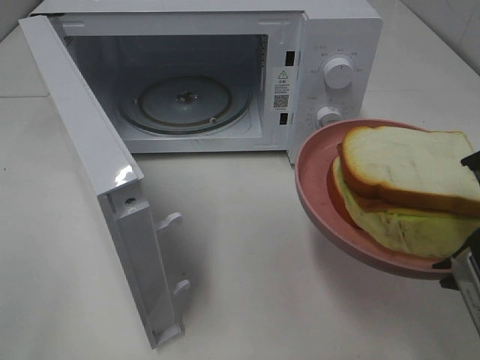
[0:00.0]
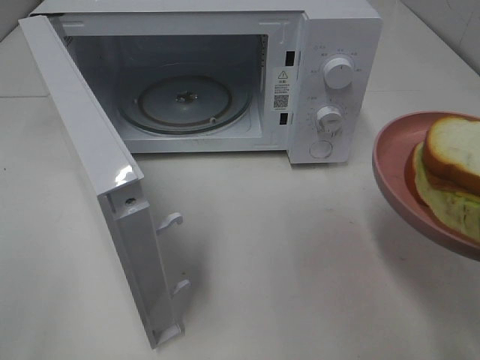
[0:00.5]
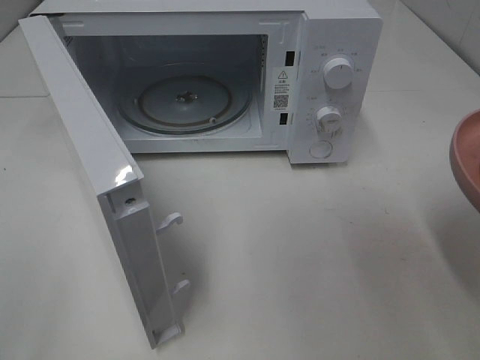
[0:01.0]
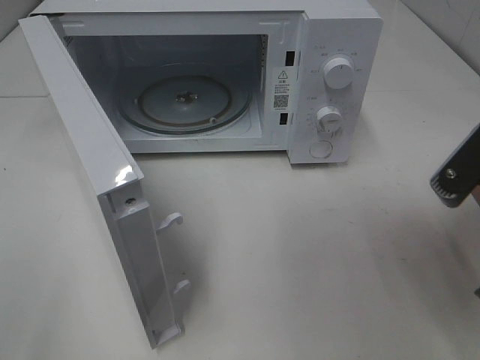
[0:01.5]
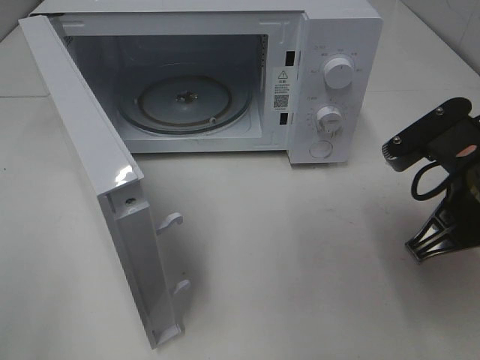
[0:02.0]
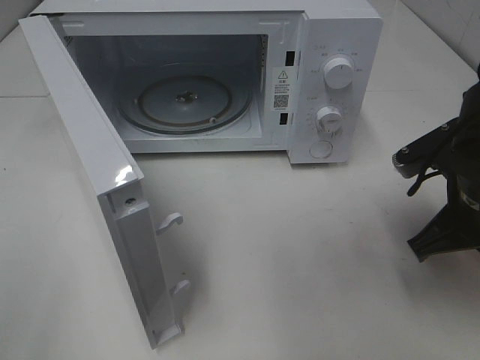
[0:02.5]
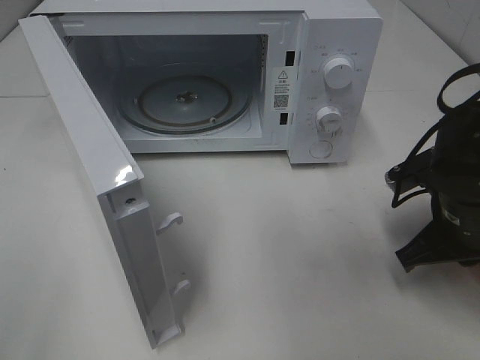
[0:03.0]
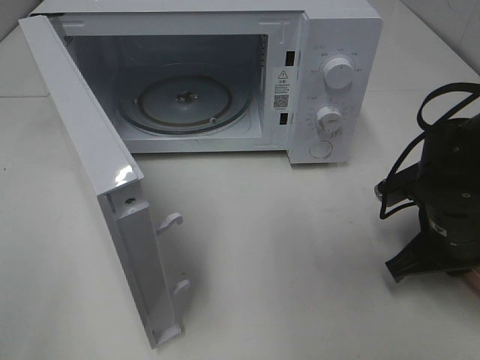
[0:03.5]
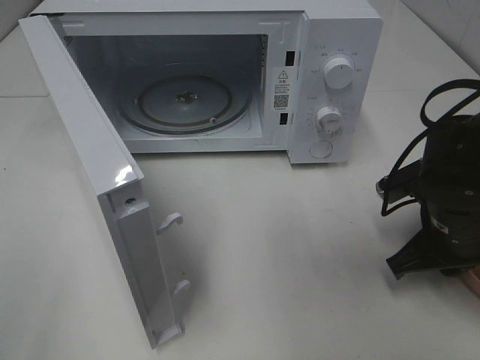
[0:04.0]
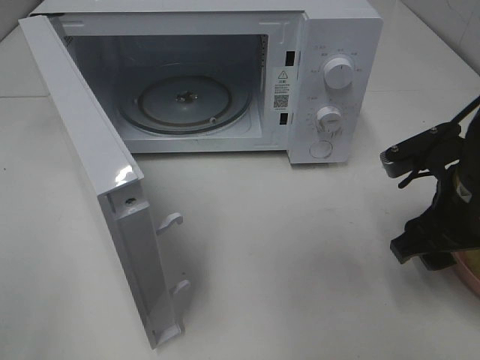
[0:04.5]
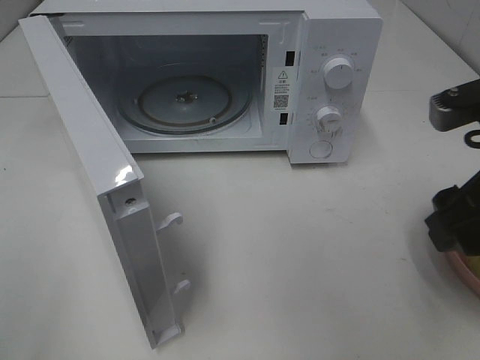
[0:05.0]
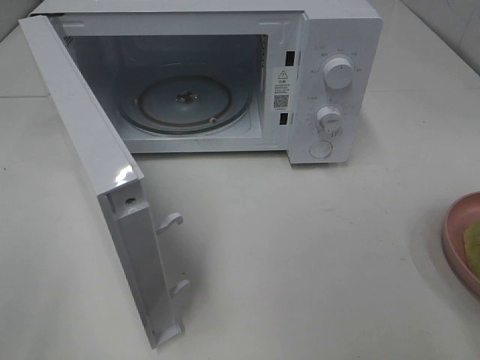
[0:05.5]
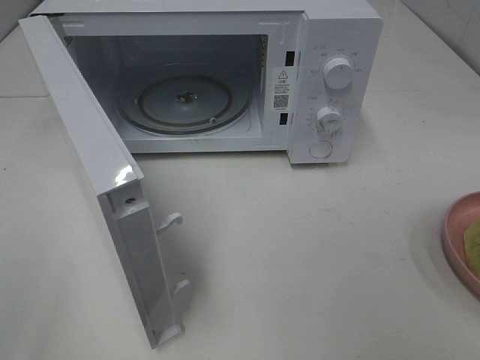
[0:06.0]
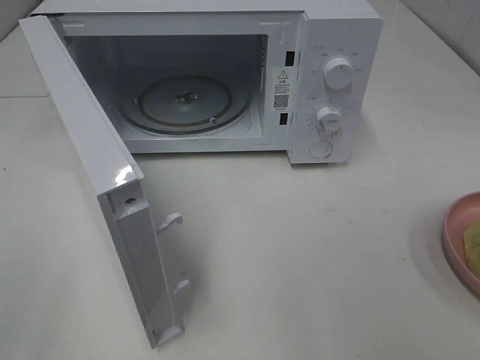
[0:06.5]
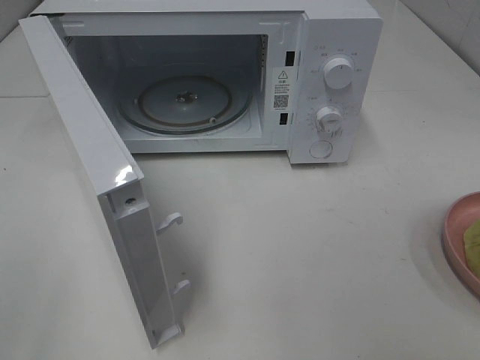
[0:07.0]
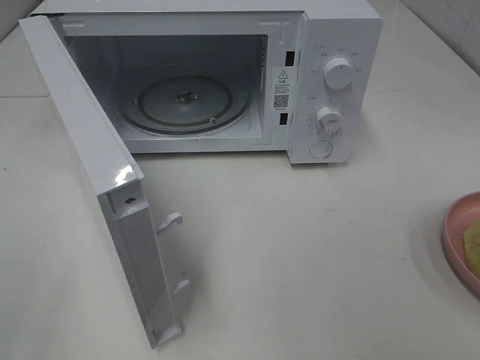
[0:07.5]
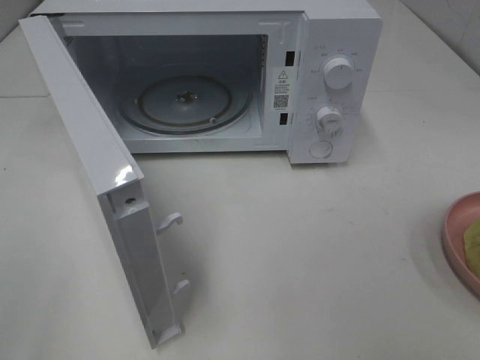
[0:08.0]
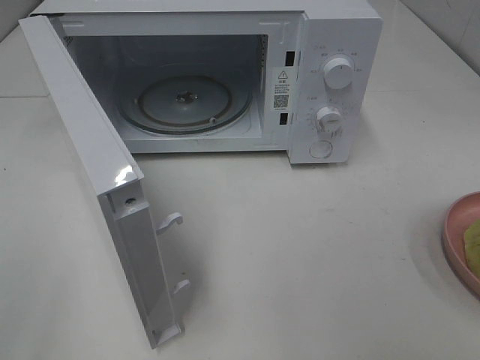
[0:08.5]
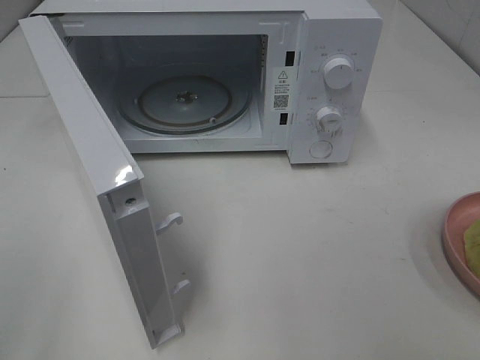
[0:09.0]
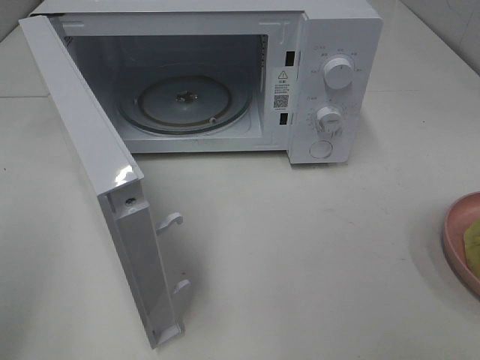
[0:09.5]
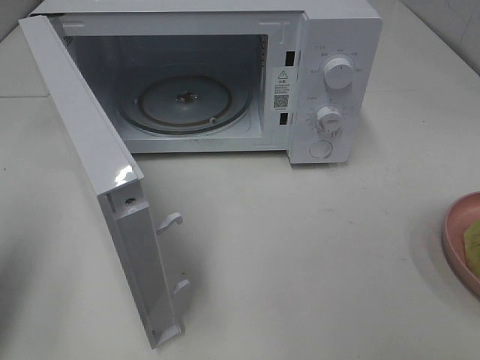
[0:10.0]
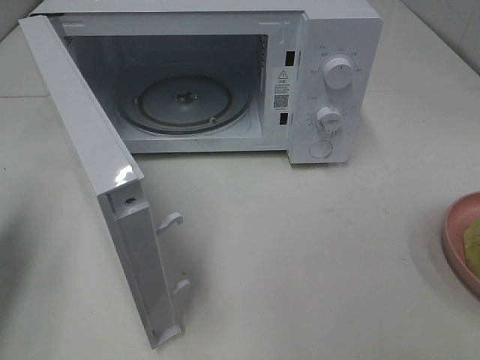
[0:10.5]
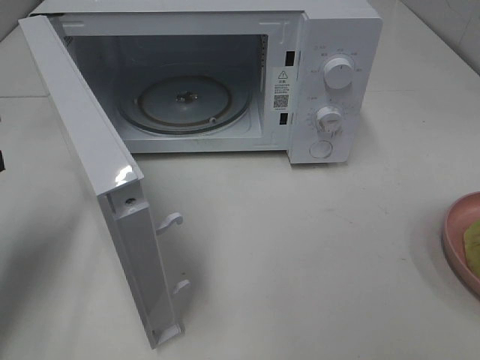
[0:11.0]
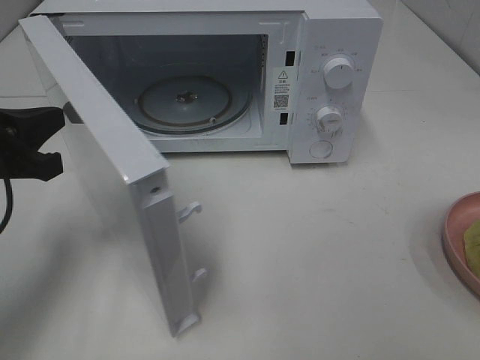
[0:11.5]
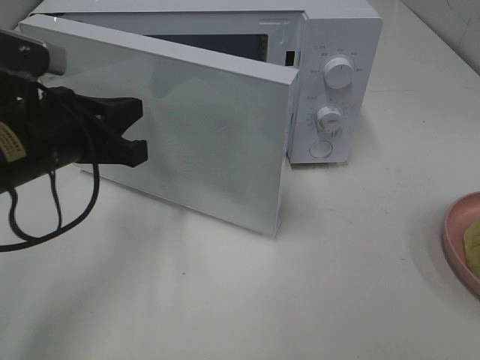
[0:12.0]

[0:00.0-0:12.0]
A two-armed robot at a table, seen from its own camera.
Task of the whole recording: Heat Sandwich.
Step, 0.0 to 4.0 s: Right hand: place the plate on the table.
0.0 to 2.0 s: The right gripper is displaced forward by approximately 10 cm.
2.0 to 4.0 s: The right gripper heads downward, covering about 10 cm.
4.0 to 6.0 s: The right gripper heads upward and backward, covering approximately 25 cm, and opens its fingers.
8.0 to 10.0 s: The left gripper travels forward by approximately 15 cm, and closes up.
10.0 to 12.0 s: The left gripper goes about 20 cm to the right, forward and downward.

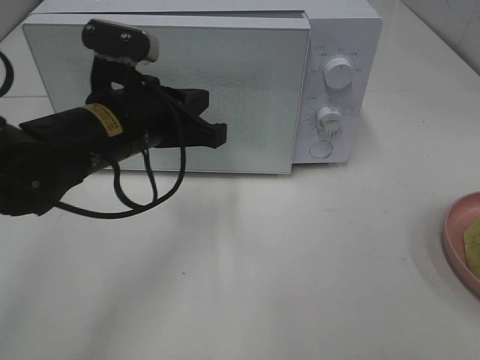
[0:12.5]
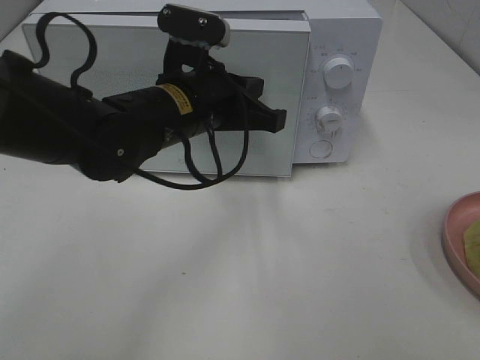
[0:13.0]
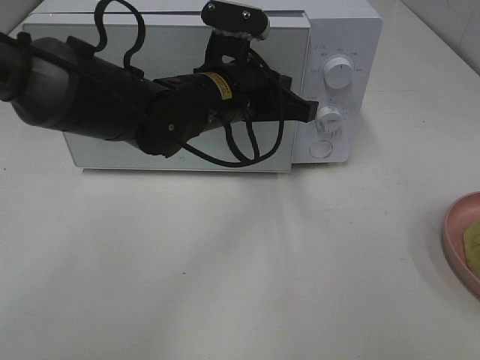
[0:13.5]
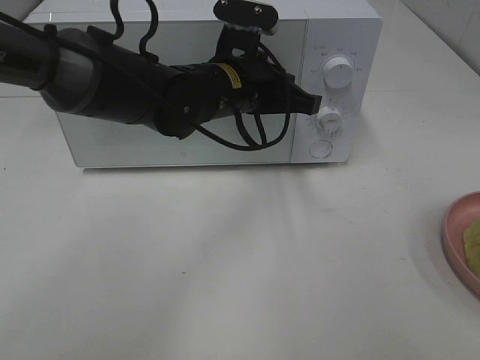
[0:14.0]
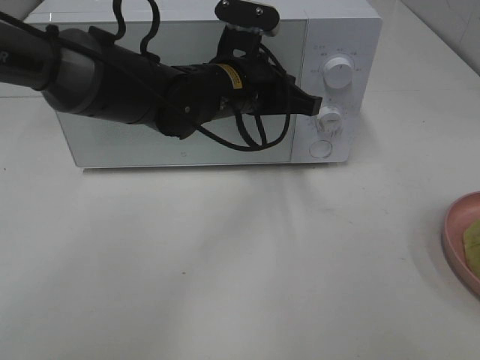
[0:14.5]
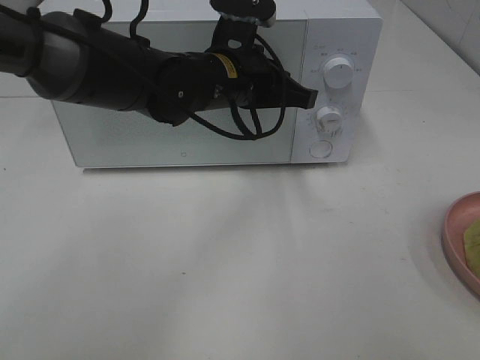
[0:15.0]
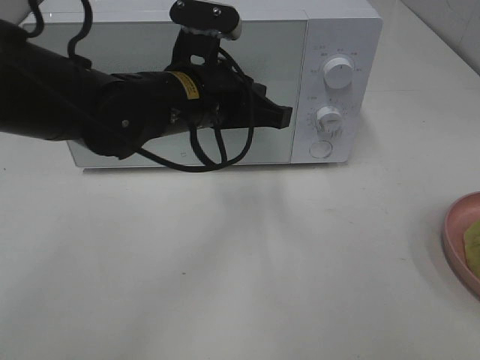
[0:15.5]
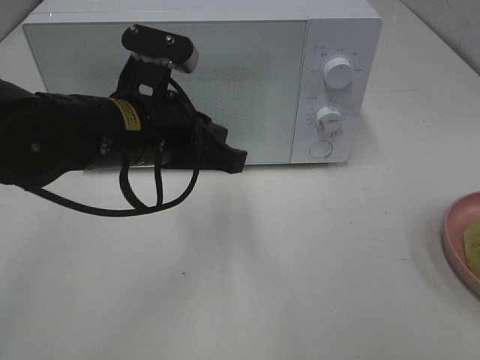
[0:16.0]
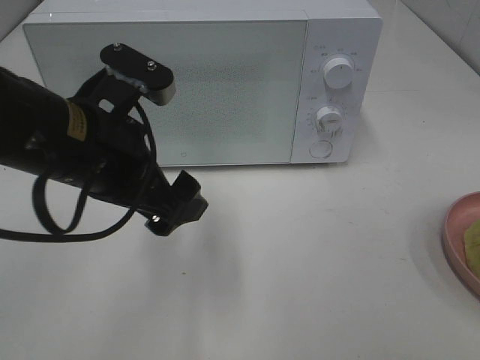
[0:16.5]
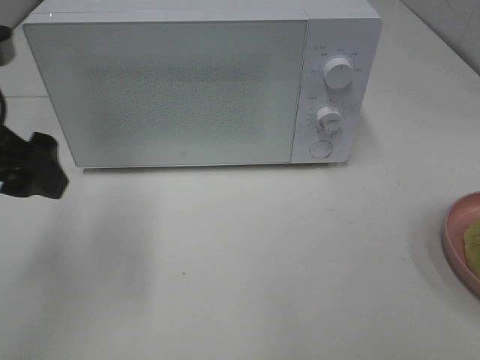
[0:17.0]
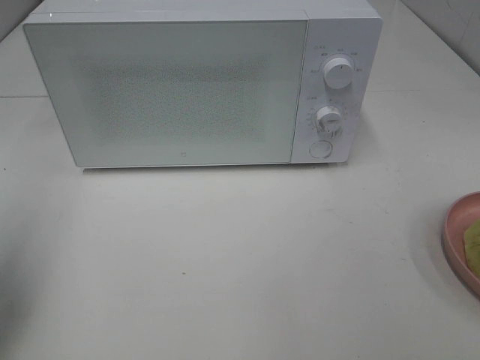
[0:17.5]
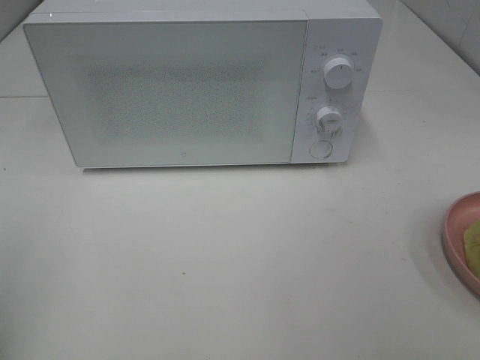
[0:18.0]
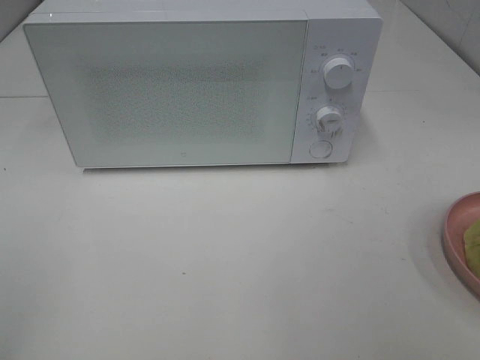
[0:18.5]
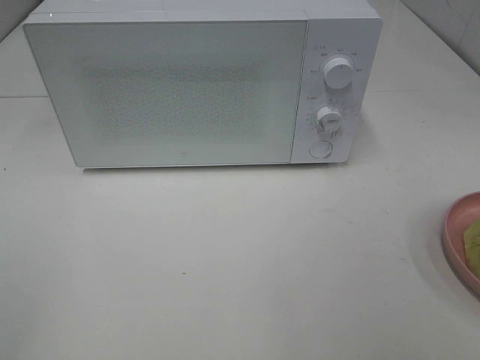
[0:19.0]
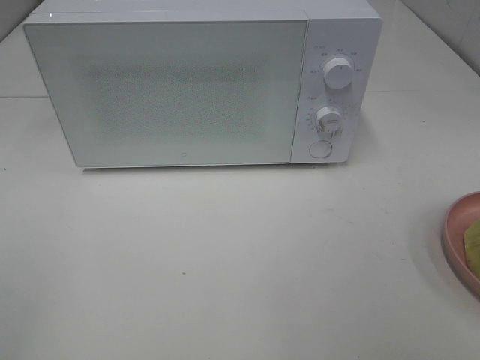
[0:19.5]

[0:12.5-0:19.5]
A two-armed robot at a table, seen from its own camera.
Task of the whole recording: Heat Sandwich.
Step, 12.5 to 14.5 s: Left hand: close the microwave door.
12.5 to 14.5 s: The left gripper heads to the right and forward, covering some 15 cm.
14.5 to 16.0 s: The left gripper shifts about 15 cm backward and to the left.
16.0 to 17.5 s: The left gripper moves to the left, roughly 25 cm, and opens up.
17.5 to 19.5 s: The left gripper travels backward by some 20 cm.

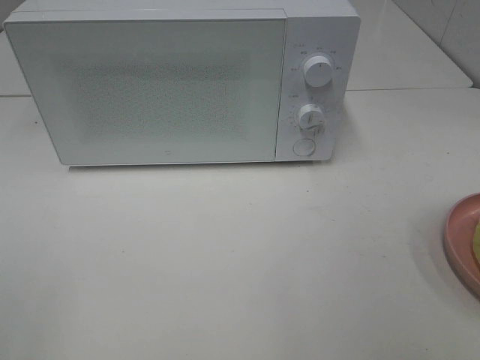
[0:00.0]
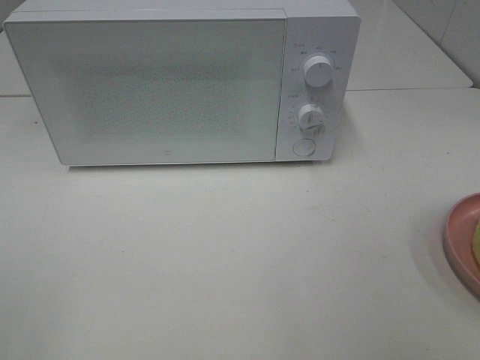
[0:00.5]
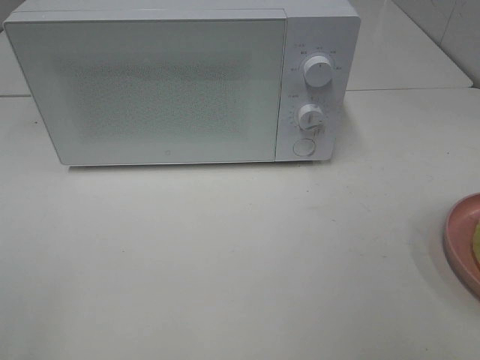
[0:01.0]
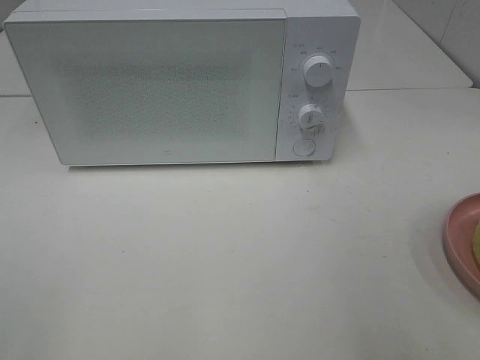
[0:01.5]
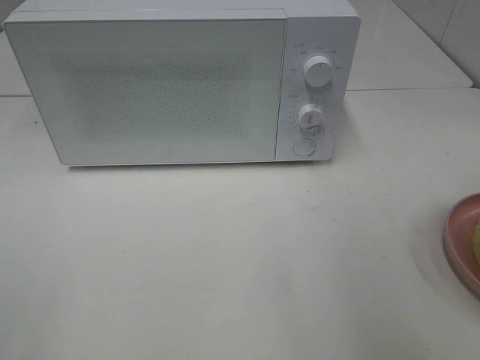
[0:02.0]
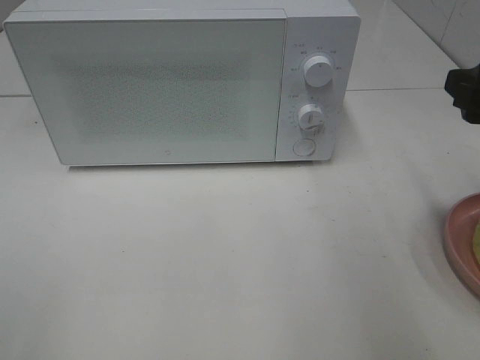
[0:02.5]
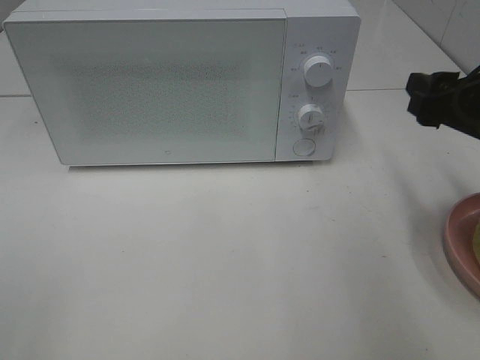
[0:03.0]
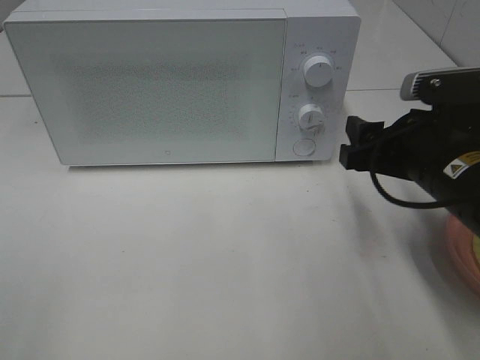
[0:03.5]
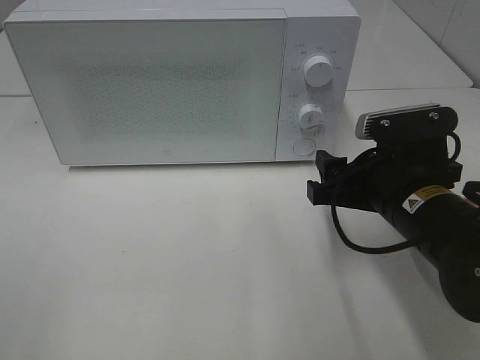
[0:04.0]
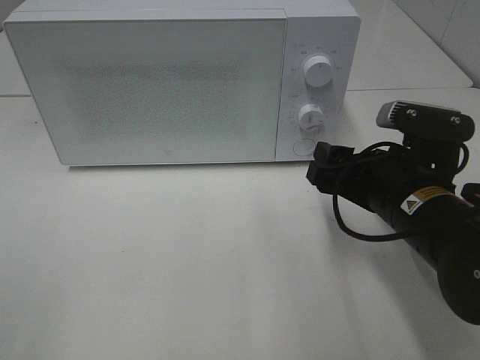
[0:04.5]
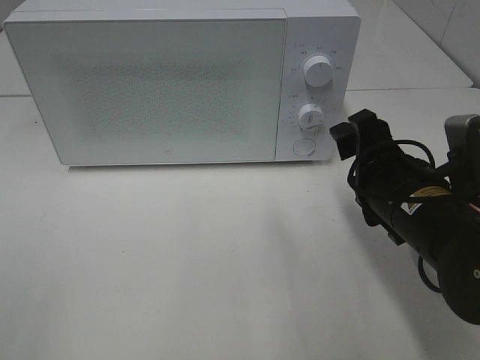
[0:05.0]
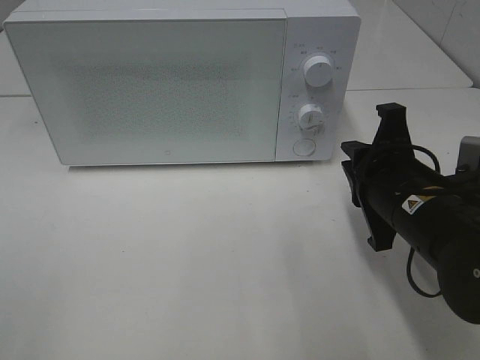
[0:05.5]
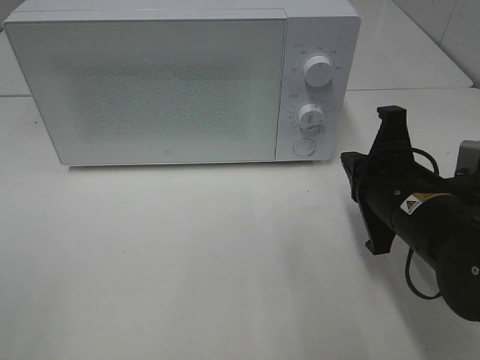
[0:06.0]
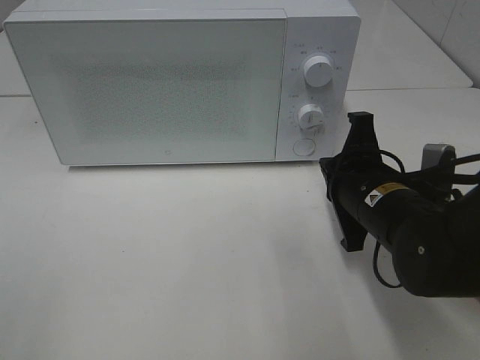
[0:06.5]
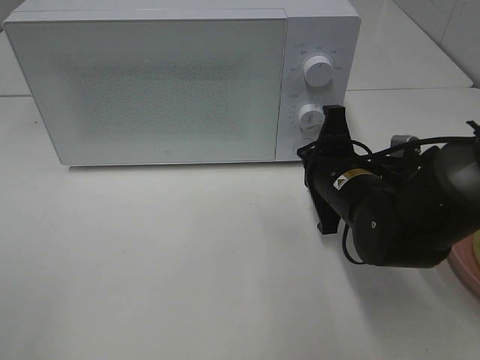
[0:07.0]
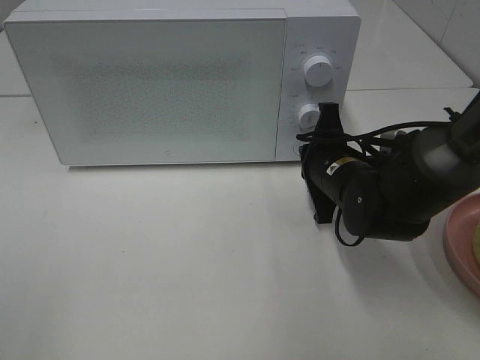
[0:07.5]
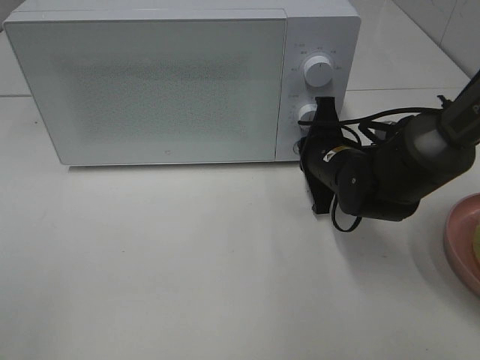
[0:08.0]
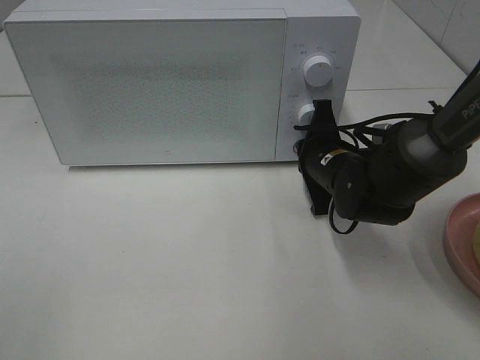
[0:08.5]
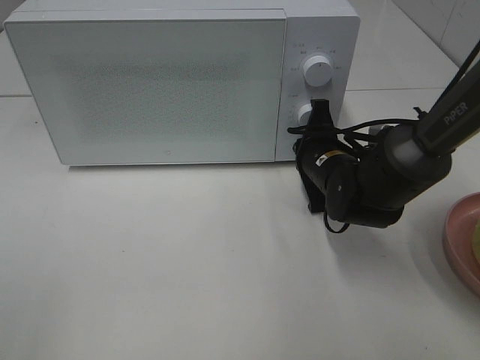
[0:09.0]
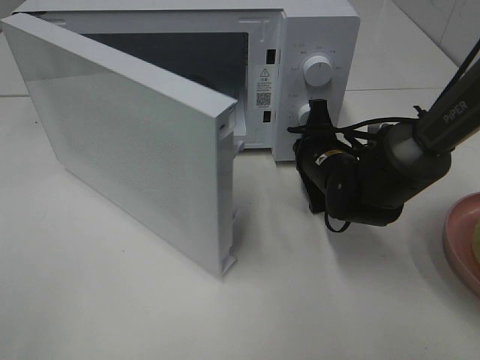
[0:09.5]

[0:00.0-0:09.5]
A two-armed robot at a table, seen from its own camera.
Task of the whole recording: Heat Sandwich.
2.0 to 4.0 s: The right gripper is displaced downward, to the left and forward by some 20 cm.
4.0 to 5.5 s: The right gripper closes up.
5.5 to 7.5 s: The right gripper moves forward and downward, roughly 10 cm.
